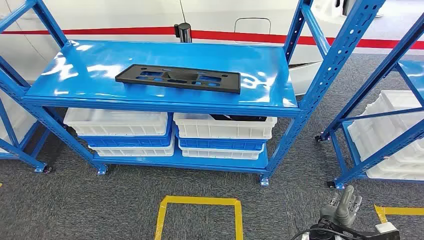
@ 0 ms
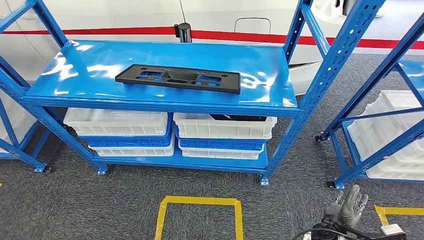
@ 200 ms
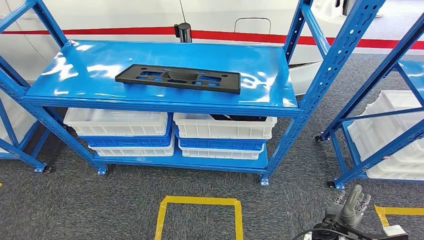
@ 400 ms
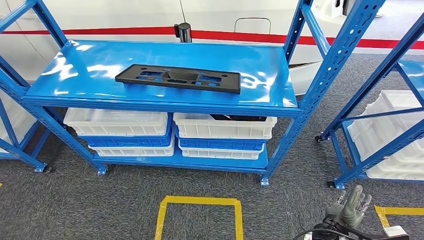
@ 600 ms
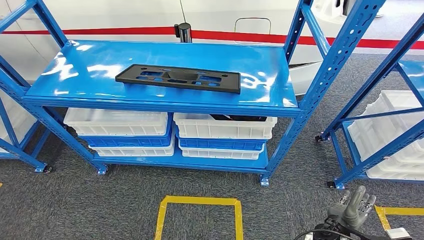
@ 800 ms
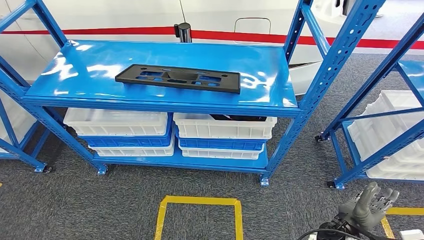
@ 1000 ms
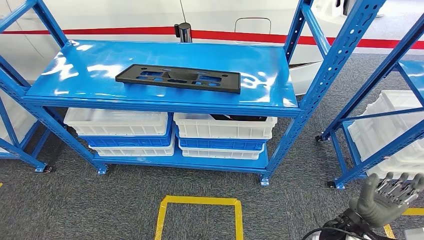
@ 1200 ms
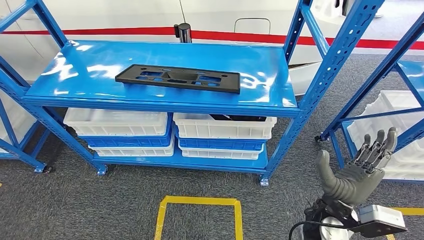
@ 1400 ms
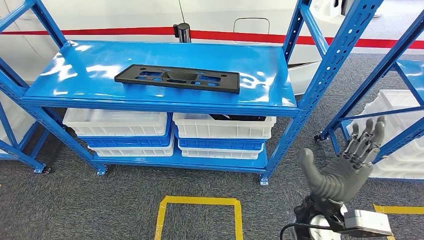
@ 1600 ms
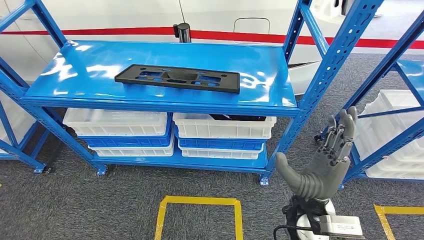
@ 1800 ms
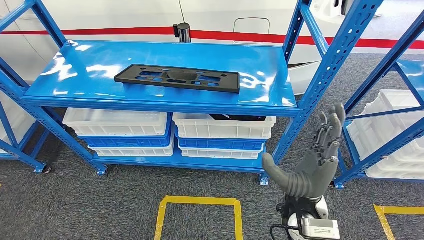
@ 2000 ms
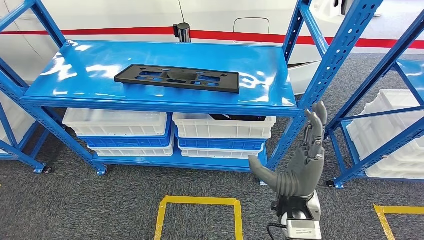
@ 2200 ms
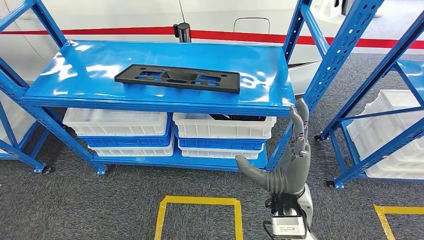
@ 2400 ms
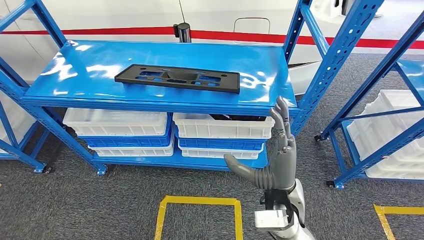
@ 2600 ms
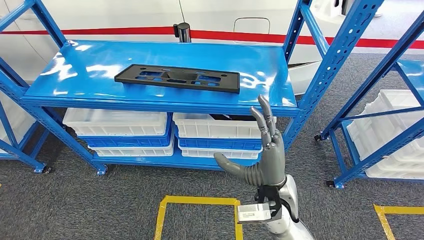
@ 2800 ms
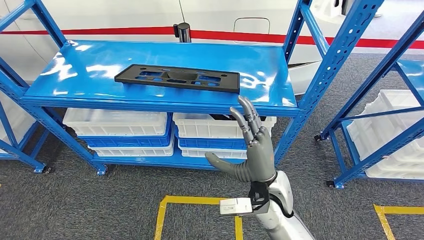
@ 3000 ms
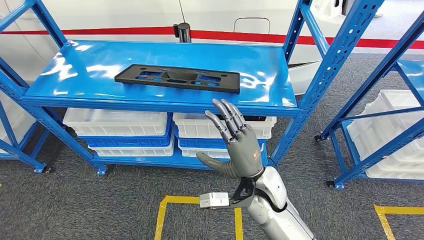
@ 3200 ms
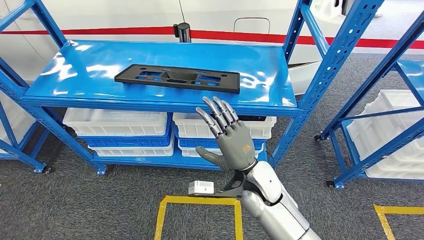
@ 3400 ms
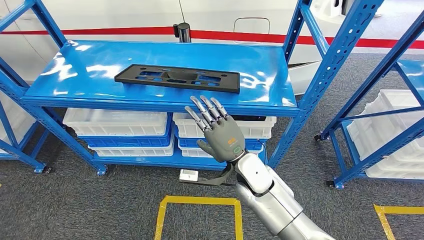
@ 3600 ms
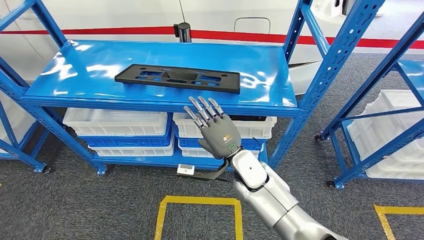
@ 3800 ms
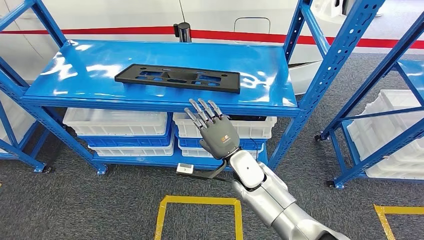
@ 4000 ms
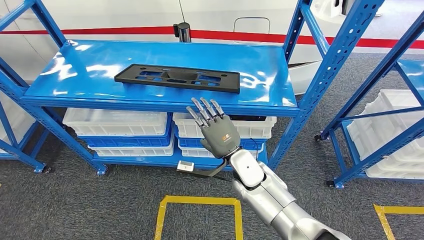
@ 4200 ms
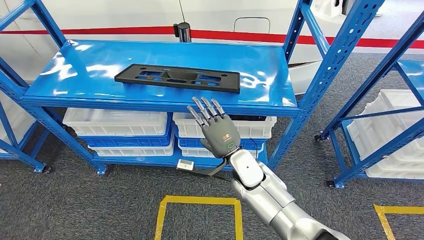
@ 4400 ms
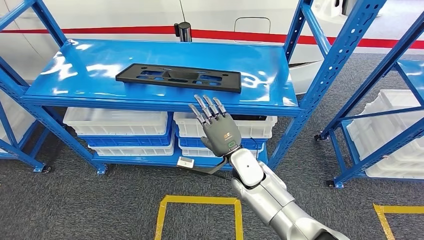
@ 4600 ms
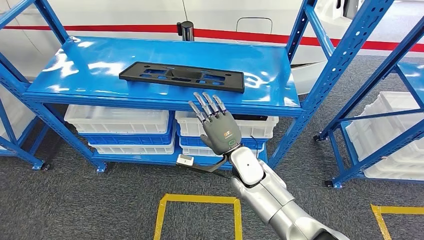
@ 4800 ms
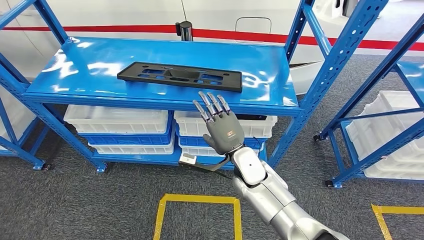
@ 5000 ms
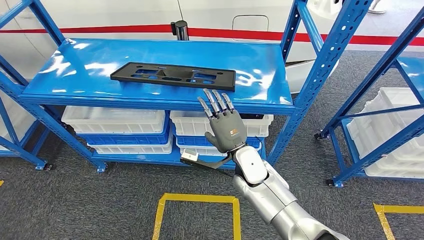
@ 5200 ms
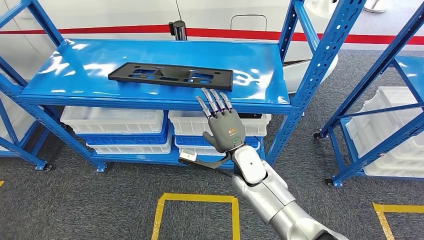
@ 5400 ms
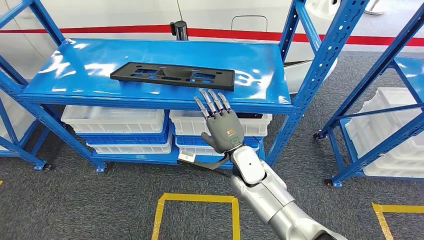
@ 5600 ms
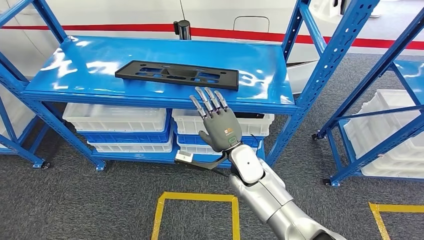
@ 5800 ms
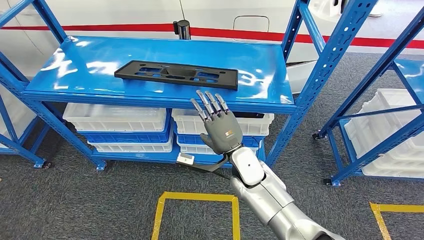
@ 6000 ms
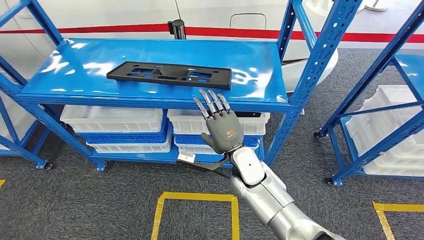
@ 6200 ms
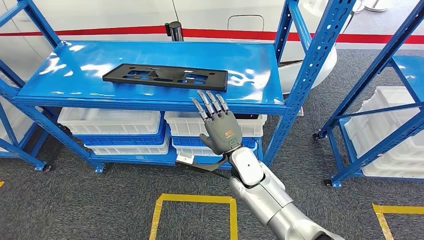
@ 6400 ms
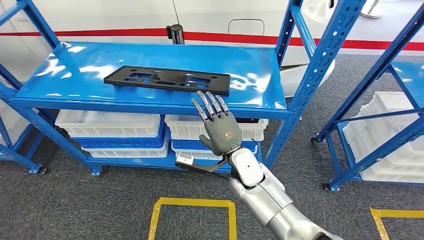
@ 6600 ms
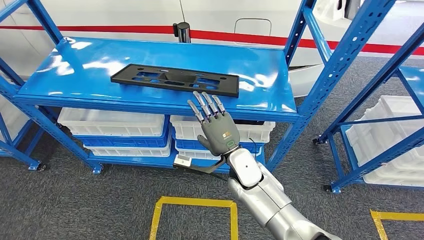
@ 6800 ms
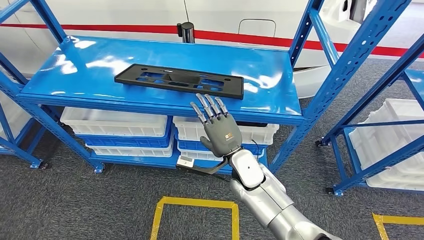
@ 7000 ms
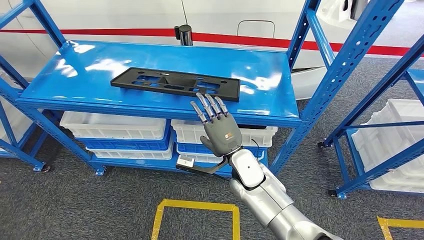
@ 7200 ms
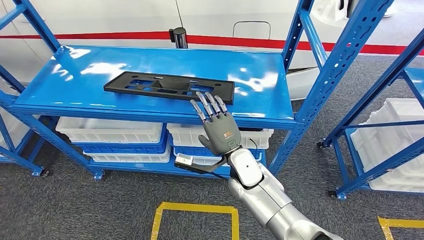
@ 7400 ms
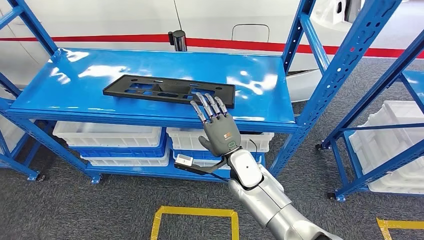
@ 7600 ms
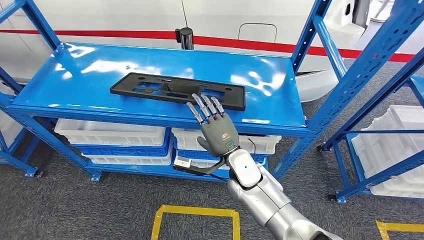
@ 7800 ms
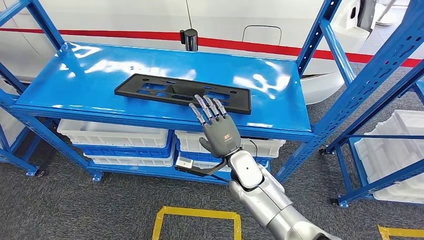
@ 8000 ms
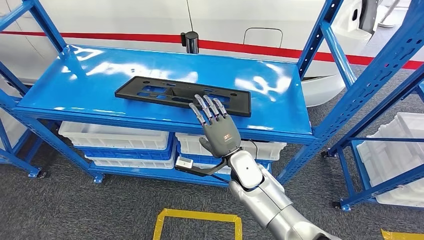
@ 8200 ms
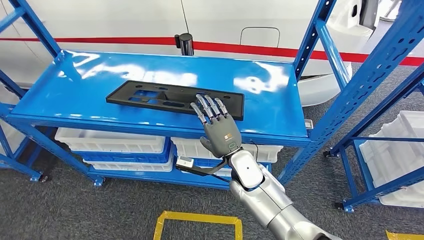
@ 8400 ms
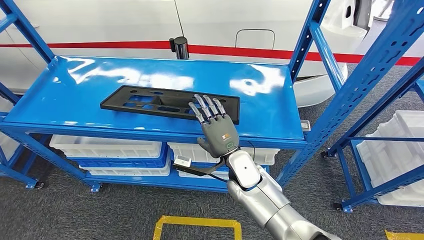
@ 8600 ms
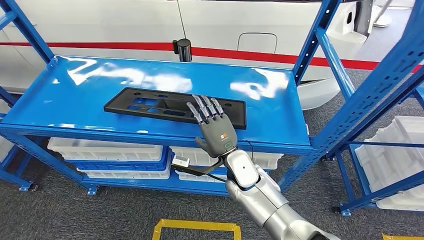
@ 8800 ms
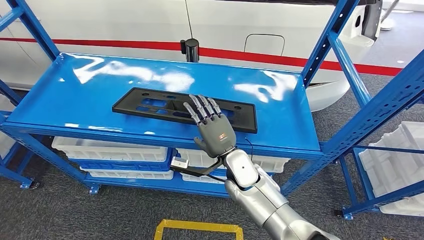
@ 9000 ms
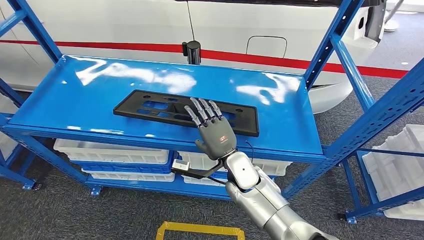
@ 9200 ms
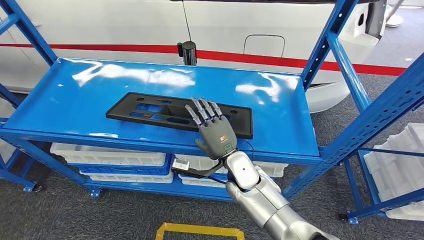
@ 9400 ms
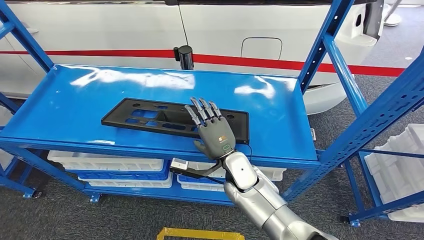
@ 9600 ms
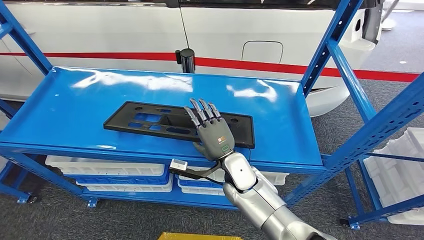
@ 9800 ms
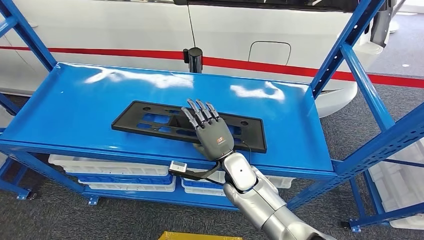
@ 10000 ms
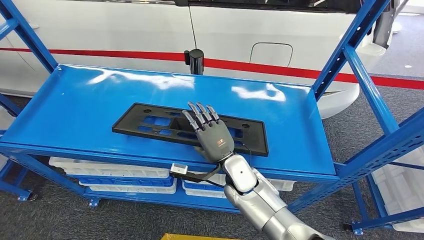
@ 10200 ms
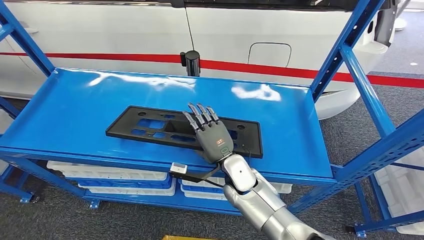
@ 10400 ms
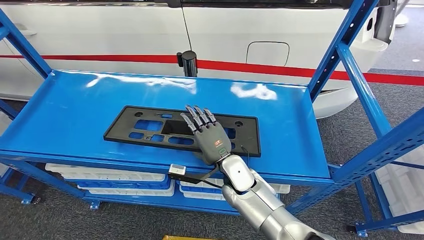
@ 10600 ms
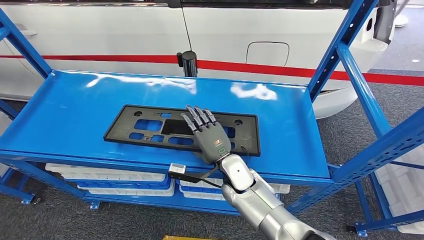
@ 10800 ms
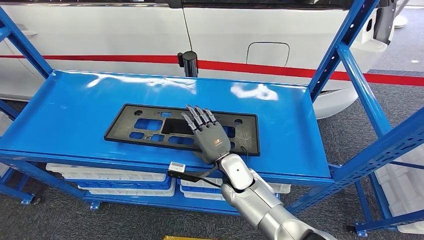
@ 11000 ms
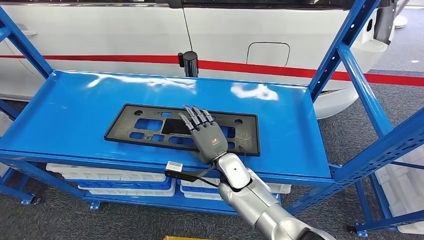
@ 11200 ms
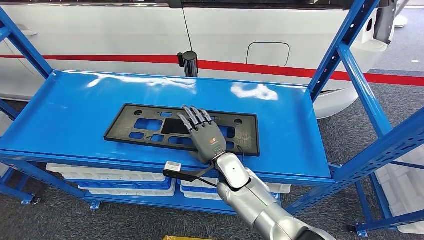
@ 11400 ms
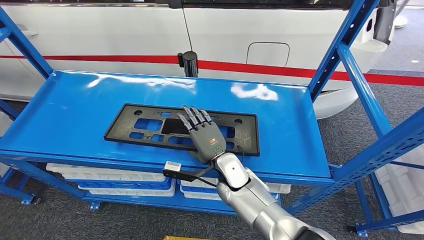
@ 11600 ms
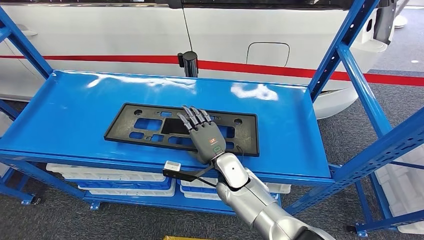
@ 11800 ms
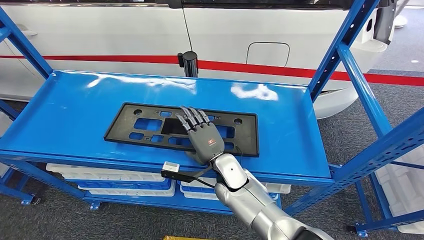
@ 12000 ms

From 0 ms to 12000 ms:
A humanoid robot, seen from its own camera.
From 1600 ms to 3000 ms: The right hand goes approximately 10 cm to the left.
From 3000 ms to 4400 ms: The right hand moves forward, approximately 5 cm.

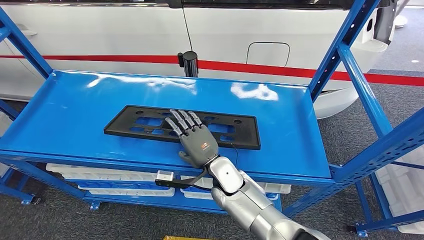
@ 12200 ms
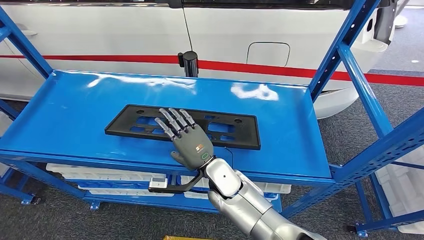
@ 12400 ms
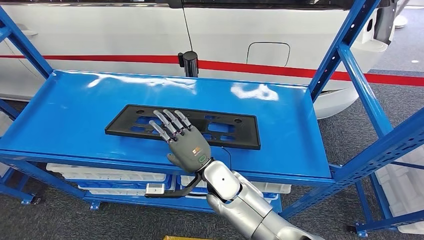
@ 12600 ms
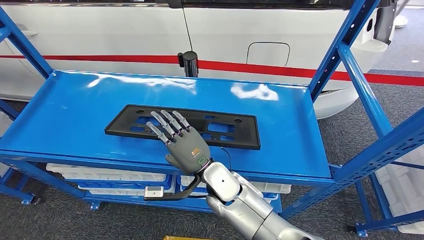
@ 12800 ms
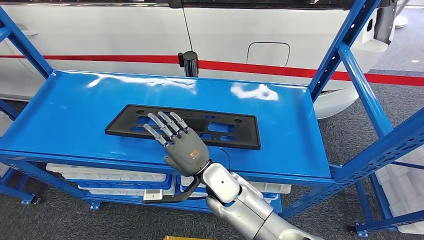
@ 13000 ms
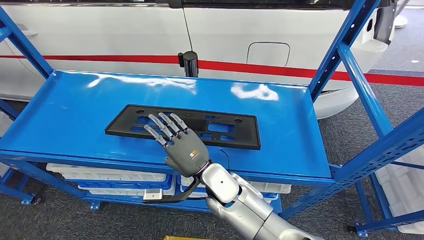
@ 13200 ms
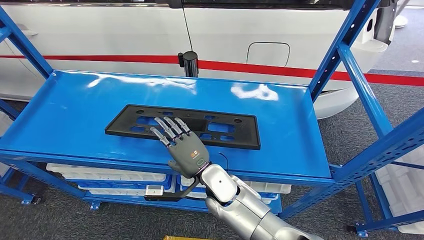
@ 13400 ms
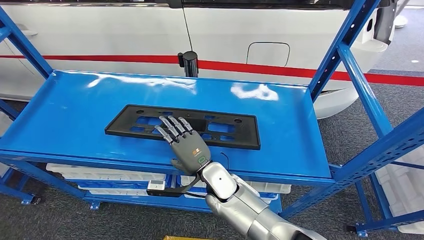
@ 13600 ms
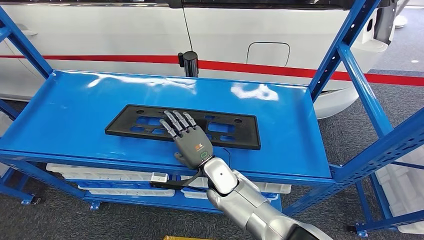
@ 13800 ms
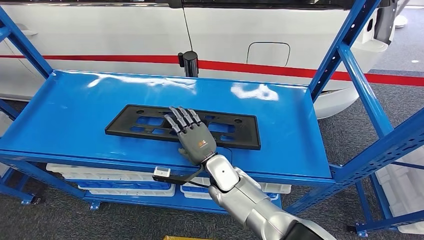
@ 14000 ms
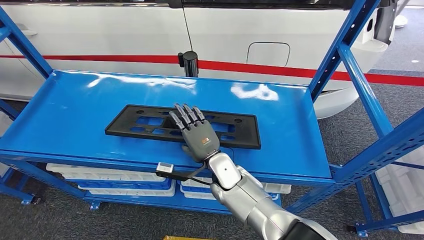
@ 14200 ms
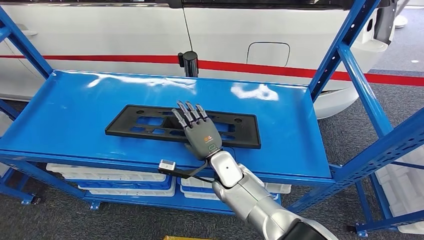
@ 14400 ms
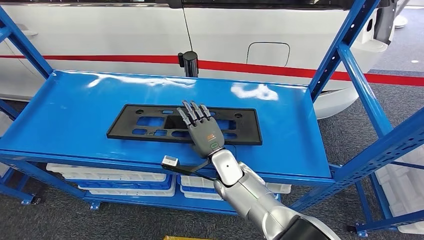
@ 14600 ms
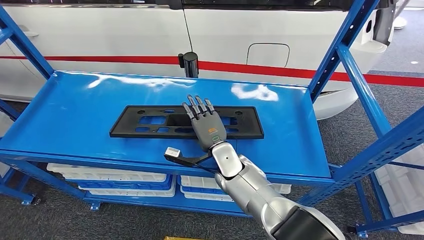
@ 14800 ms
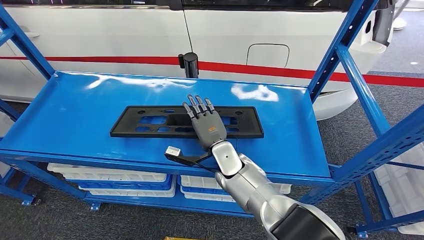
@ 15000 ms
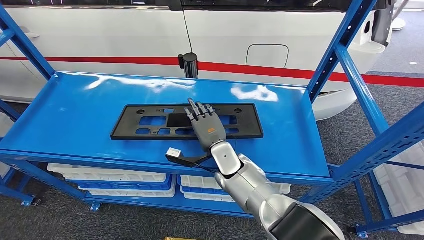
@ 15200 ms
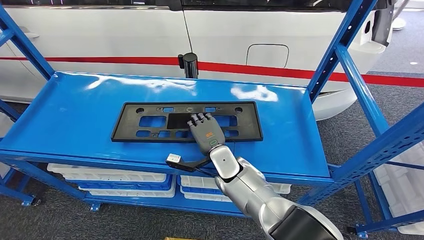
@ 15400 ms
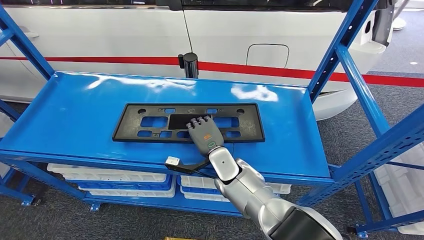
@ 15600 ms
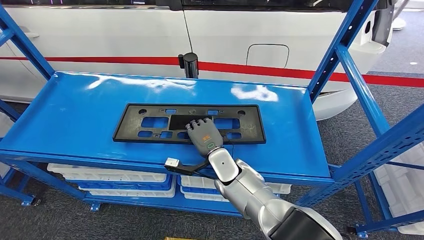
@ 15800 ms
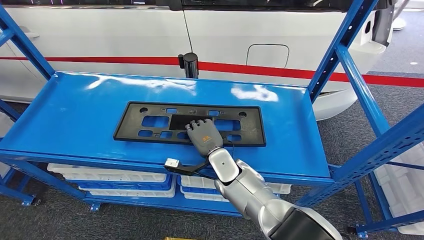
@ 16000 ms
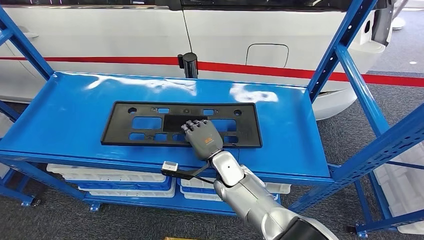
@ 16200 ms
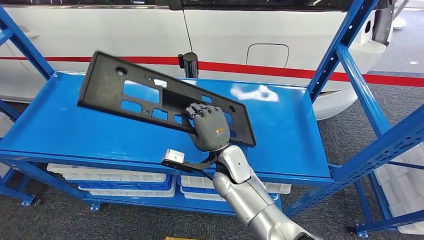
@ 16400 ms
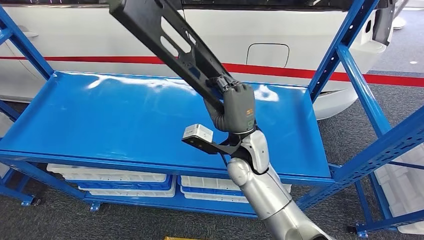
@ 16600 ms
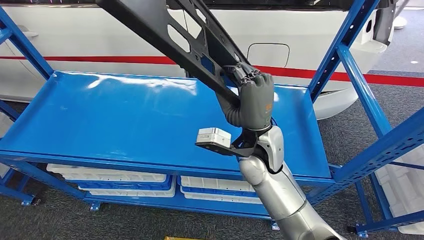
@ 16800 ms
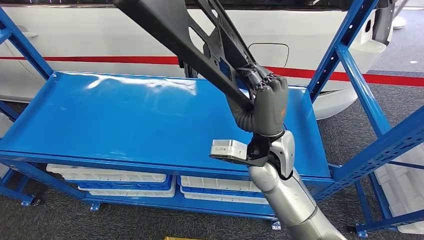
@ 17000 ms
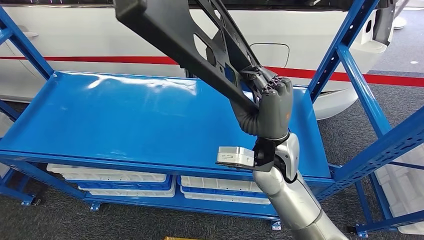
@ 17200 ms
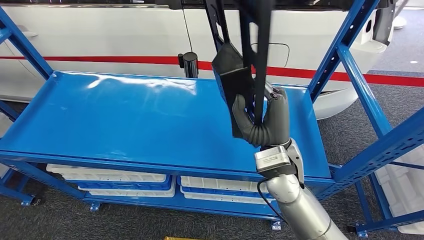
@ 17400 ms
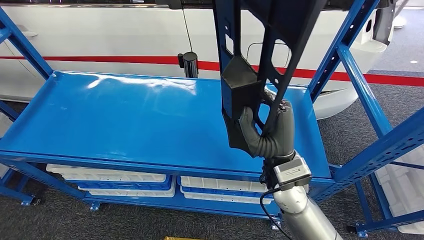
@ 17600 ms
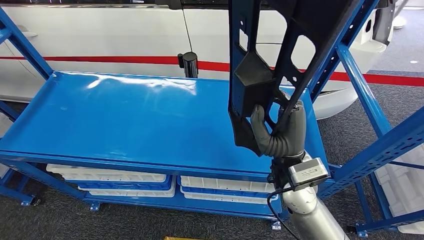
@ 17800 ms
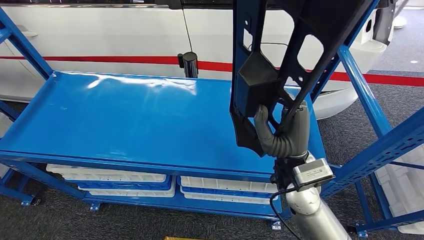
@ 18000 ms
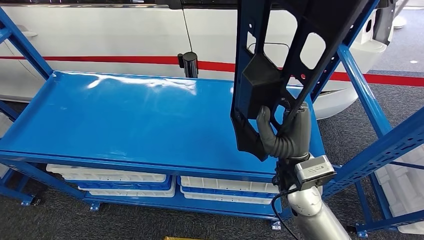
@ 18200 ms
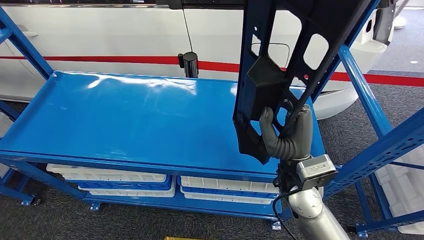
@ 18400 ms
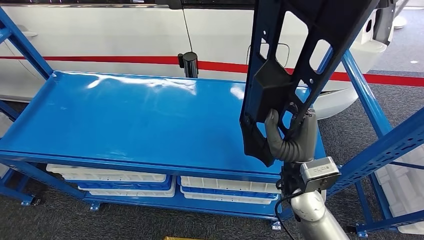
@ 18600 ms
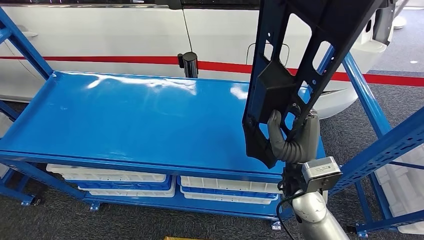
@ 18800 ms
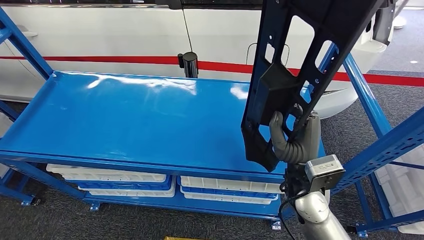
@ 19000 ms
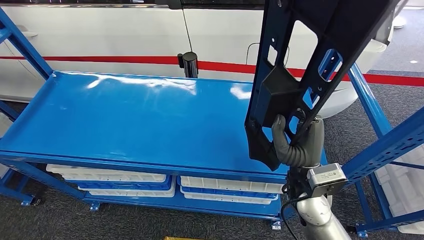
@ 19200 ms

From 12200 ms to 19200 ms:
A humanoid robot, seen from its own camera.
From 12200 ms to 13600 ms: The hands make only small movements.
From 13600 ms to 15000 ms: The right hand is displaced forward by approximately 5 cm.
From 17800 ms to 19200 ms: There are only small adjustments of the hands.
